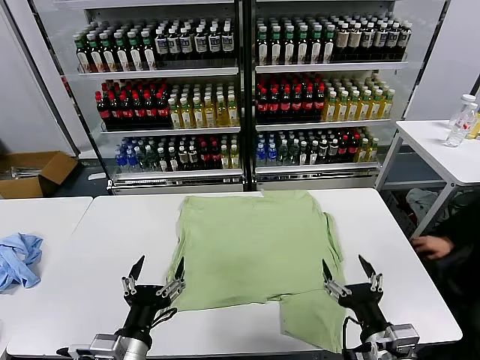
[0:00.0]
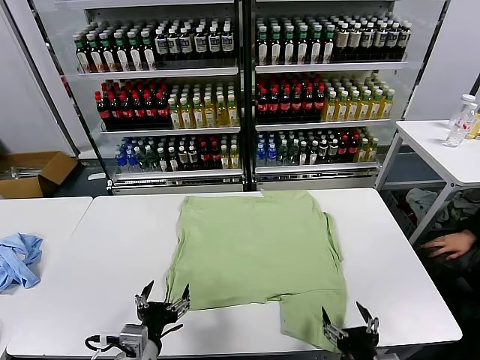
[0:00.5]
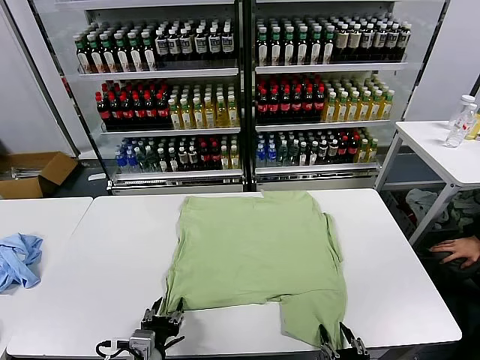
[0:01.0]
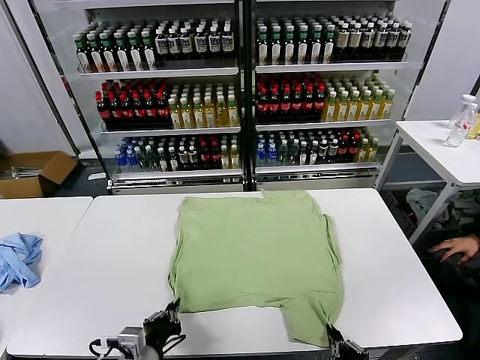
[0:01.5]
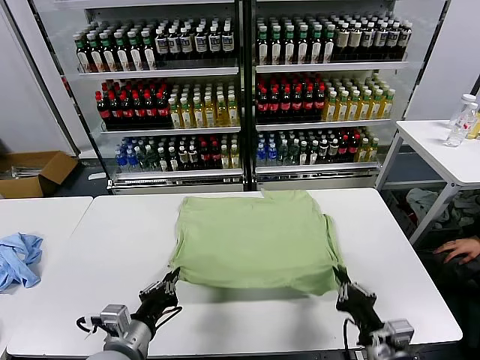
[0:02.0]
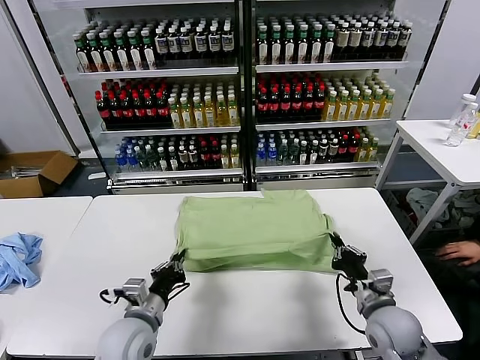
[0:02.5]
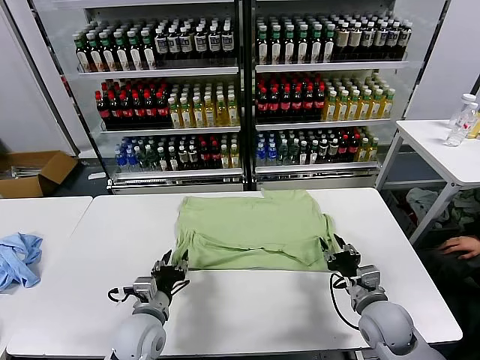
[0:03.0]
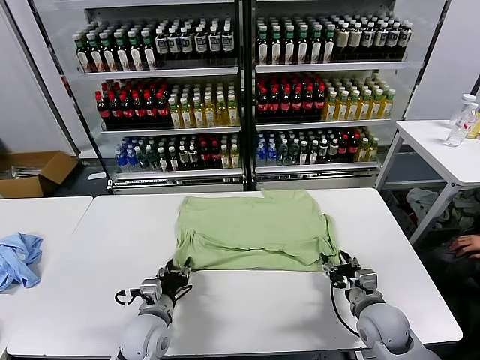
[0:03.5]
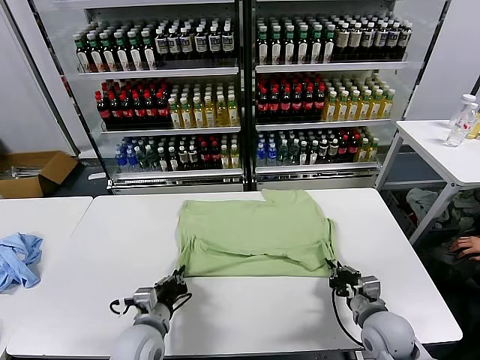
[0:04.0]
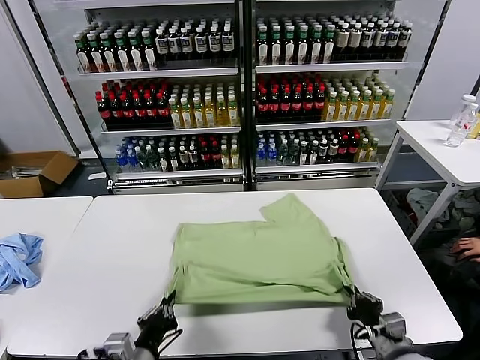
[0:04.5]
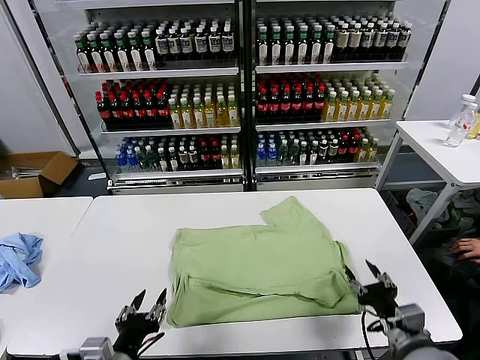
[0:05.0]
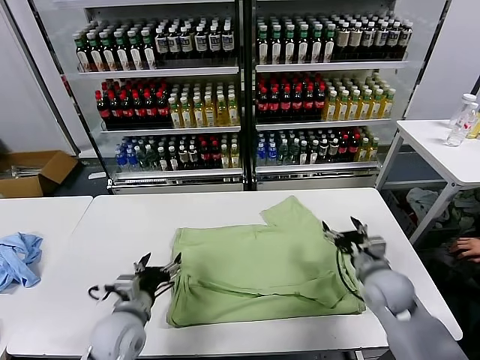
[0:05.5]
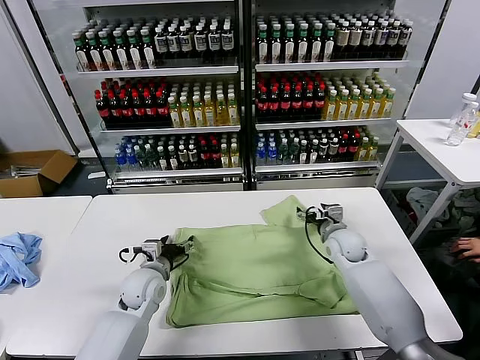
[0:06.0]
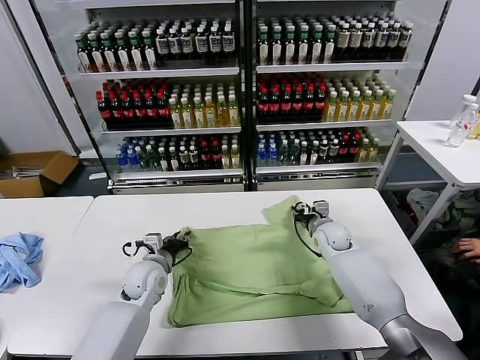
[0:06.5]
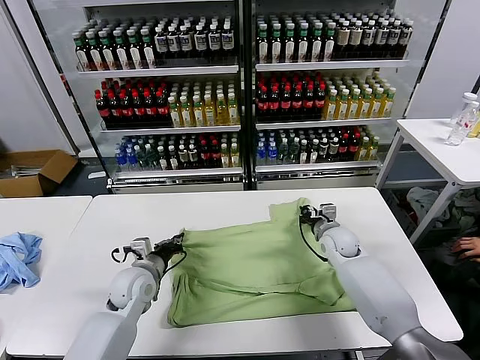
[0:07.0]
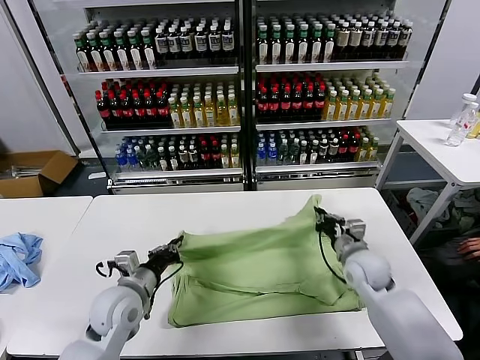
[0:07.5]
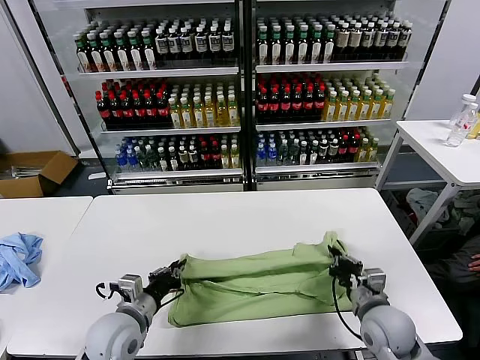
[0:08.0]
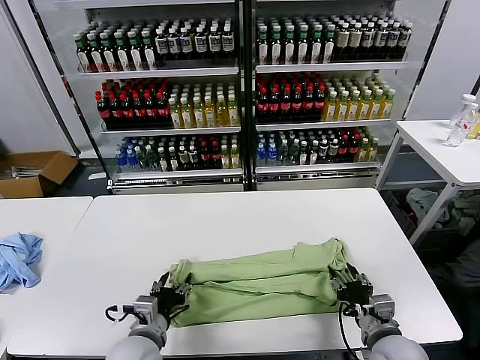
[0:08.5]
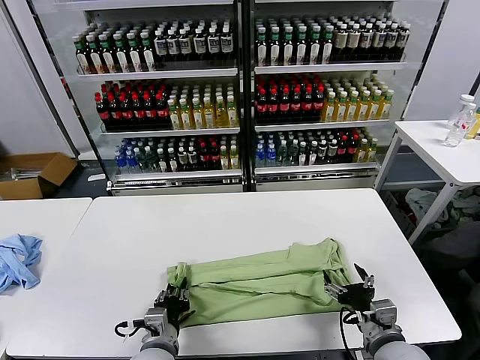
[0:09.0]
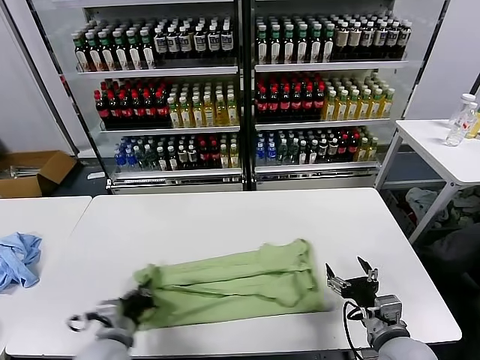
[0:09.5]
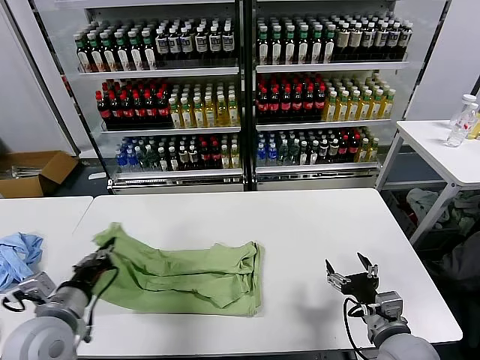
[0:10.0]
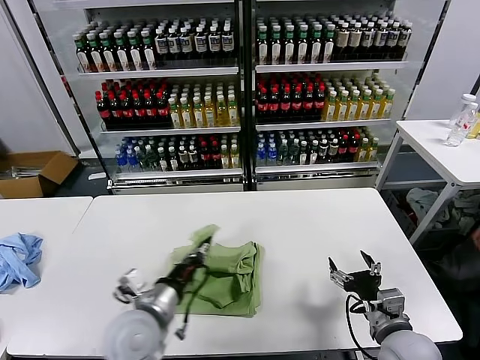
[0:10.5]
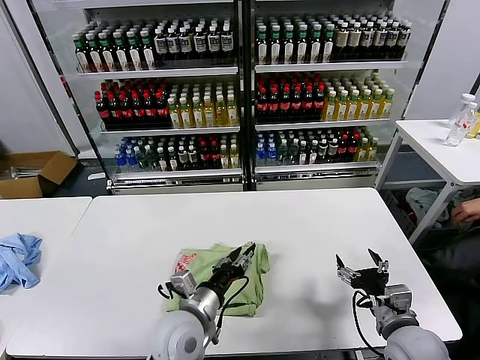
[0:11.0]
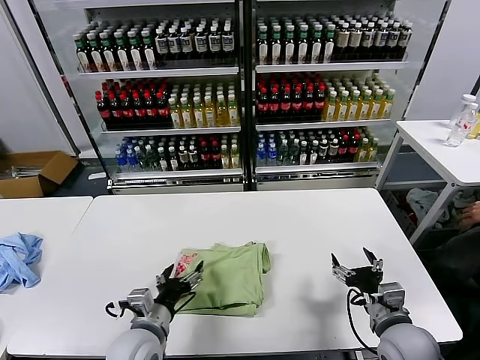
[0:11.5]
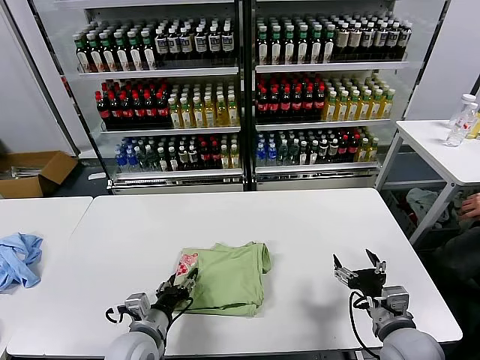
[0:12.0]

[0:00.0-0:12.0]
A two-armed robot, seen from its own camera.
Task of the whole recording: fold and organize the clothes.
Step, 0:00.0 to 0:01.5: use both grippers simultaneously to clamp the lower edge of the clothing fabric.
Step, 0:02.0 to 0:02.5: use both grippers to drag the lower edge of the fabric forward and fold it over the upper edge.
Step, 0:03.5 to 0:04.5: Drag the clothes downward with both gripper.
Step, 0:05.0 to 0:06.5: use both grippers simultaneously to clamp the upper edge of the clothing fabric.
Step, 0:07.0 to 0:08.0: use both grippers to drag the upper edge of the fabric backward and fold it over the lower edge.
Step, 0:08.5 to 0:09.0: use the left gripper to clamp the left edge of the fabric.
Step, 0:09.5 to 0:11.0: use the left gripper to drag the left edge of the fabric to the left and folds it over the right edge.
0:02.0 to 0:04.0: The left gripper goes some 10 cm downward and forward, and opens, then closes again. The right gripper travels forward and downward by about 10 cm, and opens, then closes again.
0:04.0 to 0:06.0: The left gripper heads forward, covering approximately 15 cm, and opens, while the right gripper heads forward, covering roughly 25 cm, and opens up.
0:06.0 to 0:08.0: The right gripper heads backward, covering some 25 cm, and closes its fingers. The left gripper shifts approximately 15 cm backward, and closes its fingers.
0:08.0 to 0:10.0: The right gripper is displaced backward by about 5 cm, and opens its fingers, while the left gripper travels to the left and upward by approximately 10 cm, and opens, then closes once more.
0:10.0 to 0:12.0: The left gripper shifts some 15 cm downward and to the right, and opens its fingers.

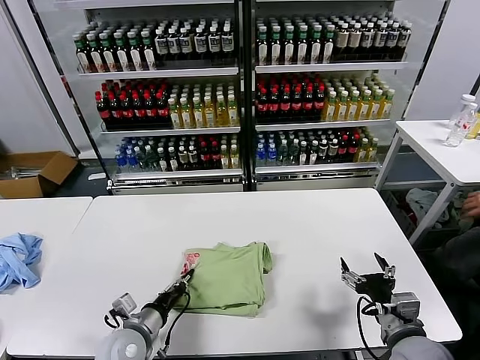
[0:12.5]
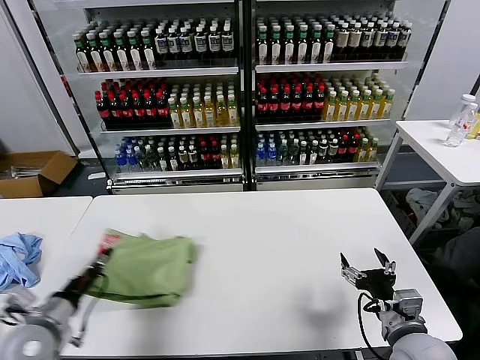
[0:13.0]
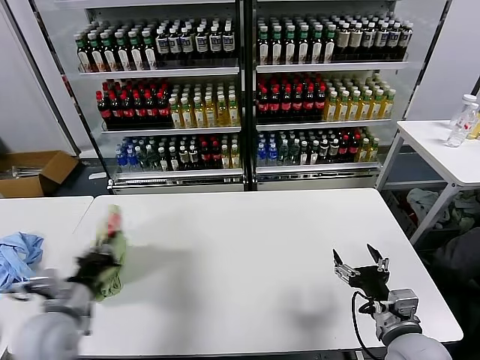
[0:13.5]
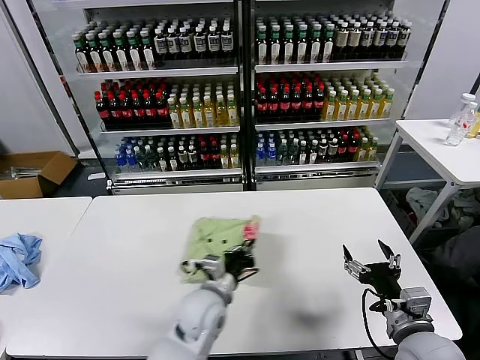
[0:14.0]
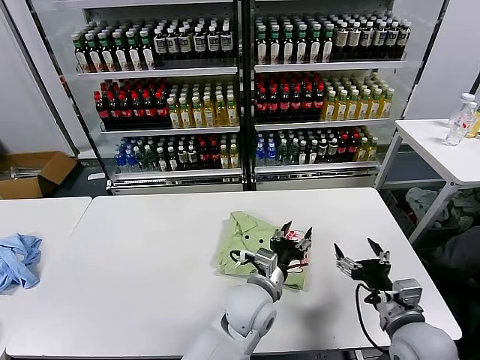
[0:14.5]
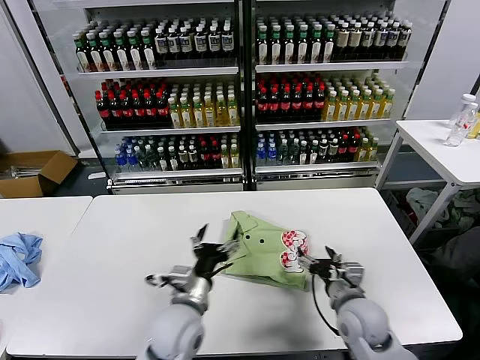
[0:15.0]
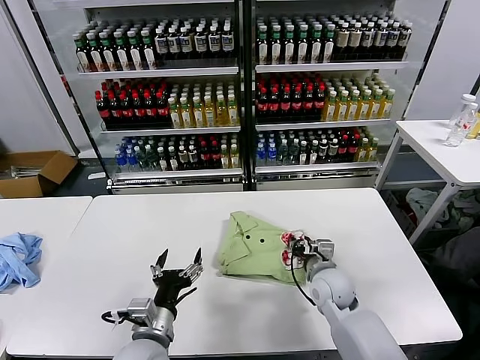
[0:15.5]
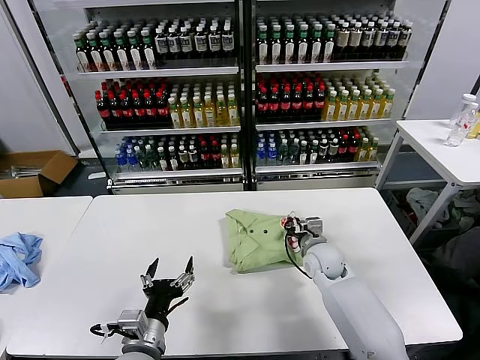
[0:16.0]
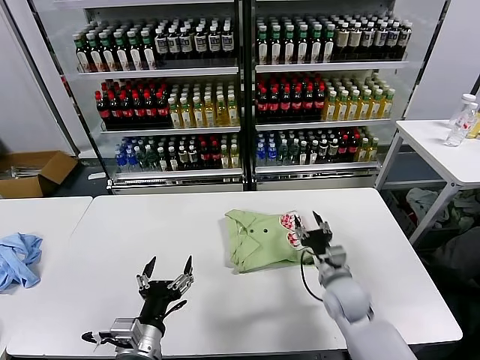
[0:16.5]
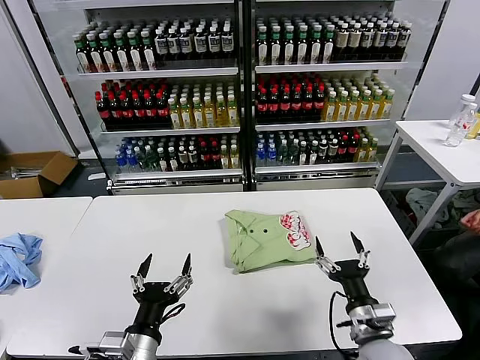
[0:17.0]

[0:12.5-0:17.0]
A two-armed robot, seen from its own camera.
Task of the whole recording: fold and organize the clothes.
Step, 0:14.5 to 0:16.0: Drag the clothes to the center of the table.
0:12.5 to 0:14.5: The left gripper travels to the right by approximately 25 cm, and opens up.
0:14.5 to 0:17.0: The right gripper moves downward and to the left, roughly 10 cm, reaches some 20 cm forward, then returns, and closes, then reopens. The left gripper heads to the left and backward, covering some 25 cm, and opens up.
